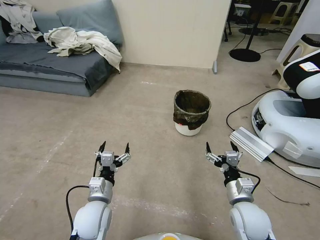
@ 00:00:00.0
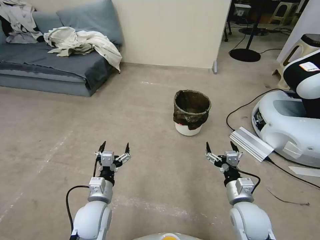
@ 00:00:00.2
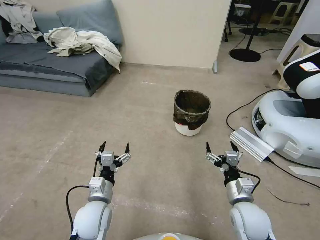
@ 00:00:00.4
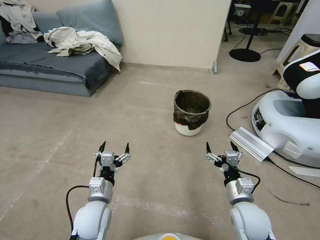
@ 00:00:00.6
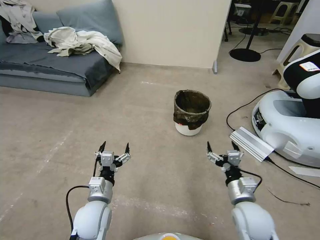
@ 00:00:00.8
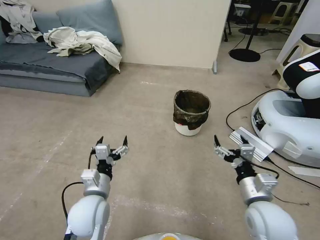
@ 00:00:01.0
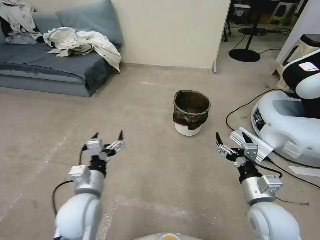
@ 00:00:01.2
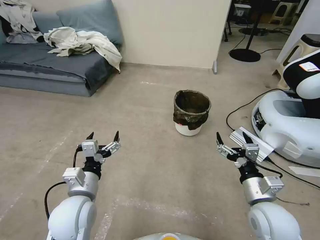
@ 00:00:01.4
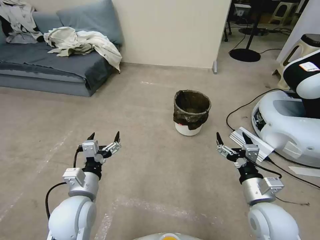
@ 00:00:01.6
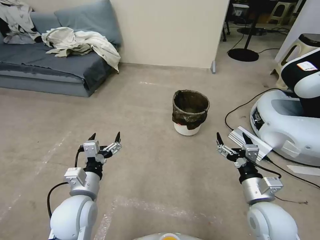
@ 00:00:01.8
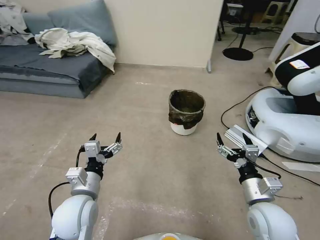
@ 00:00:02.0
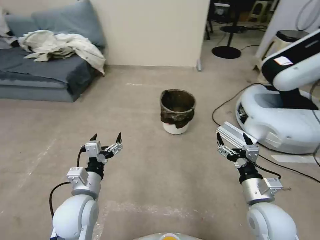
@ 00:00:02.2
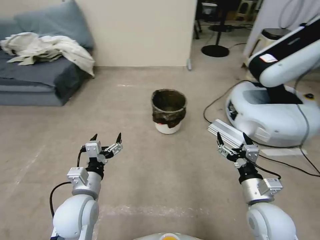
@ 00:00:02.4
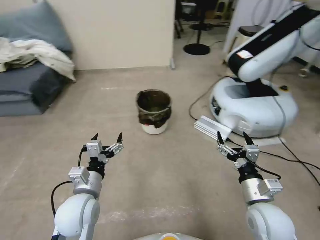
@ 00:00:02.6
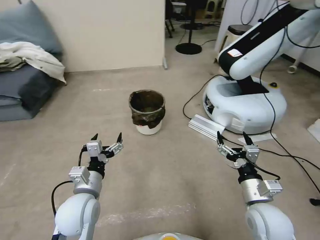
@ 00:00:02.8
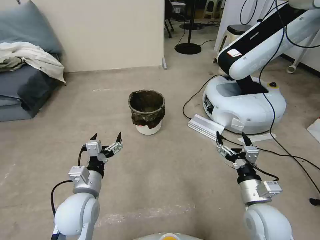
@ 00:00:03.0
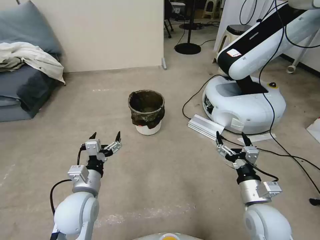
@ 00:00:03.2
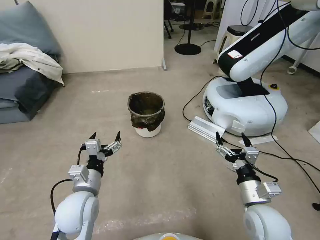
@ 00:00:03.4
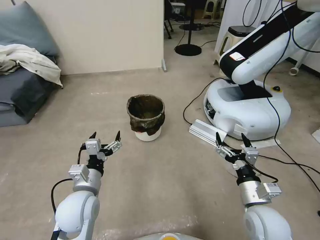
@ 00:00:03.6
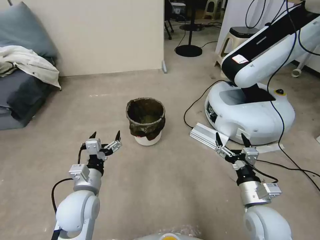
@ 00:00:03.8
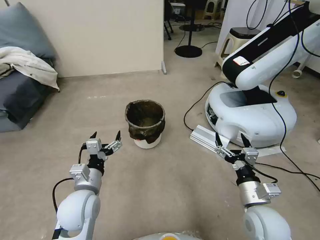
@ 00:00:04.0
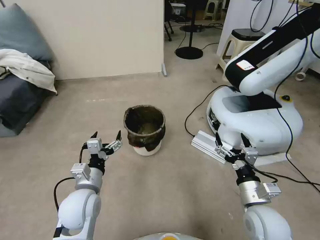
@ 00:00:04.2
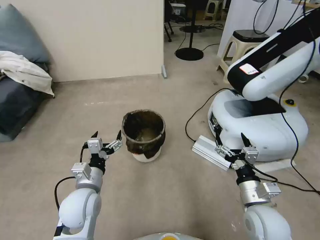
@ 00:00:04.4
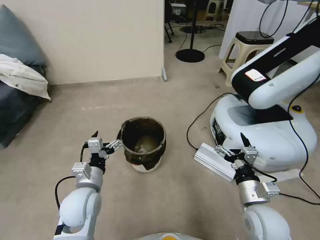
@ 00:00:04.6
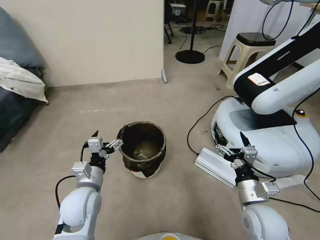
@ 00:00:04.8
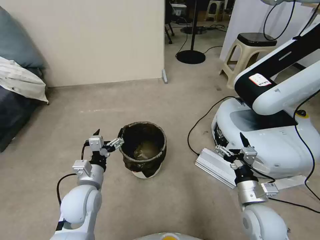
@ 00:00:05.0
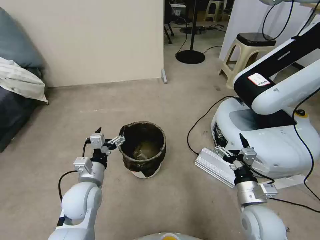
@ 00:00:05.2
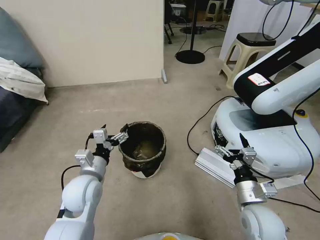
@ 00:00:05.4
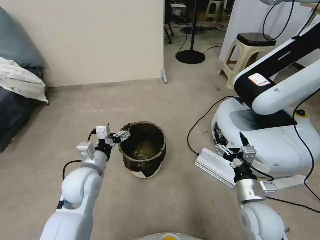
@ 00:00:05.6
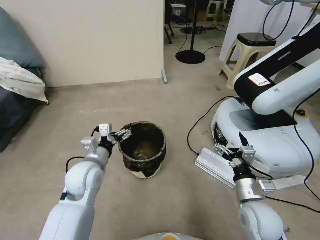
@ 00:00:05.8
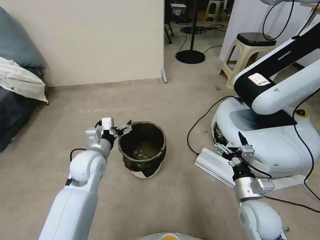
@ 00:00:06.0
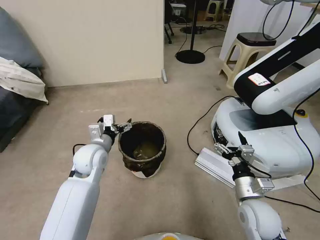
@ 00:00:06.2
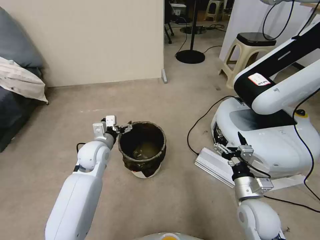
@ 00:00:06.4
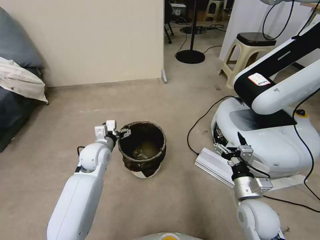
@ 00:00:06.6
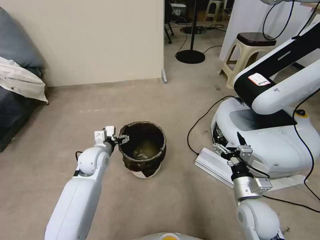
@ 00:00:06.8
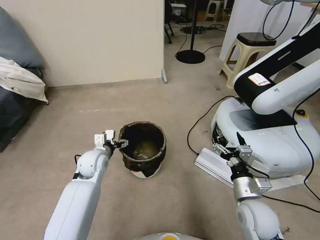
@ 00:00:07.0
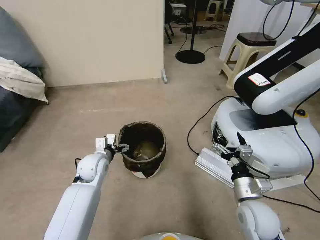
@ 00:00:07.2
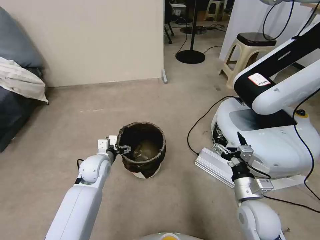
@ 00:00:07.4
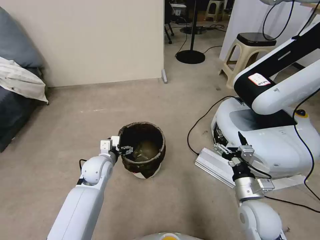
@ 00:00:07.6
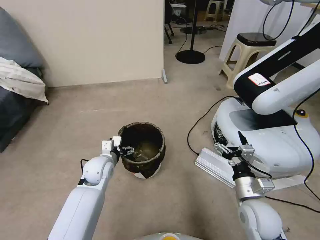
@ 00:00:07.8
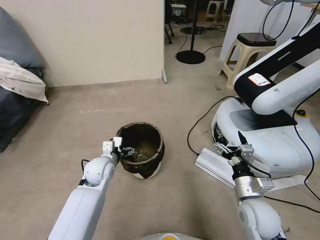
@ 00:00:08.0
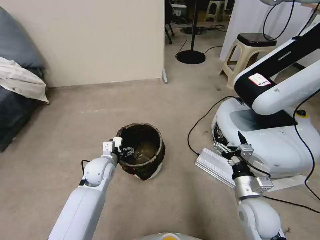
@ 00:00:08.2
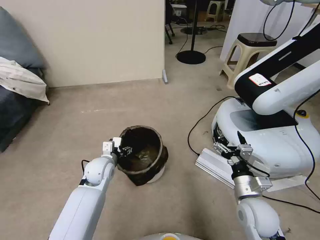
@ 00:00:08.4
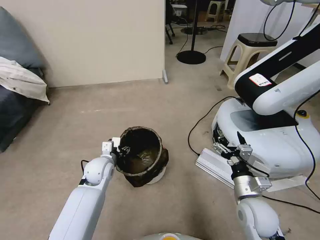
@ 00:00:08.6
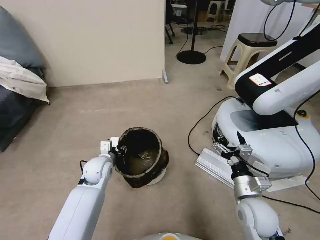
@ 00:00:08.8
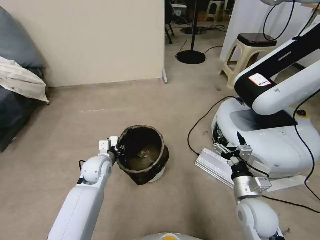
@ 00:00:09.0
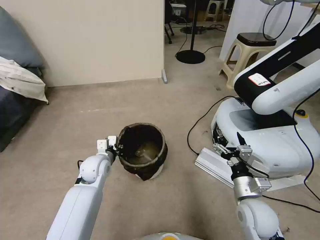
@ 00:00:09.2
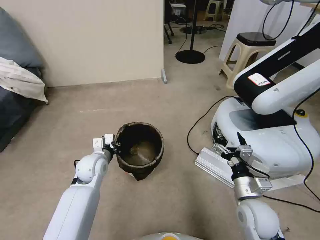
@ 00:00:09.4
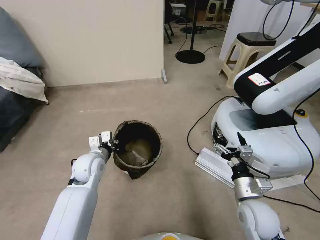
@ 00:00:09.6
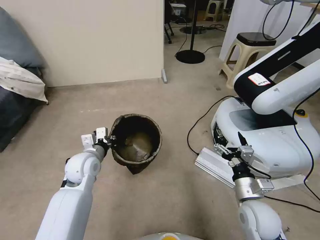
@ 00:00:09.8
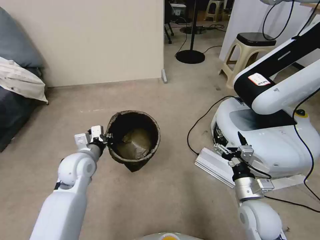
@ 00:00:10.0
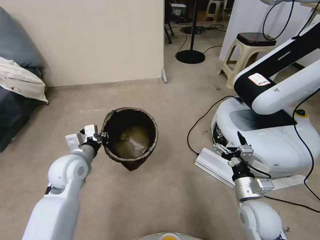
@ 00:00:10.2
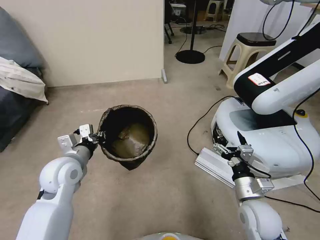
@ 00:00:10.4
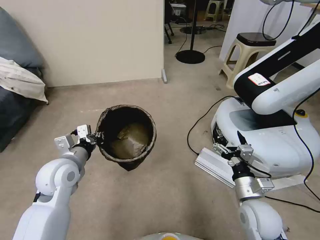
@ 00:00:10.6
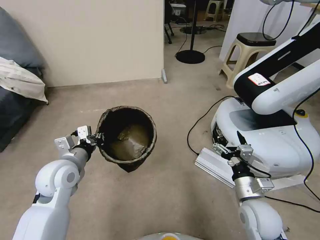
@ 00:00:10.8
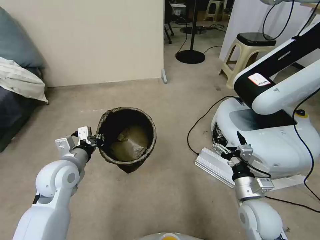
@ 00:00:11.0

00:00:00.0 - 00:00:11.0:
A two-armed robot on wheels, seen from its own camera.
Task of the whole recording: Pick up the trash can from the floor.
00:00:04.8 - 00:00:06.2: The left gripper heads forward, covering some 10 cm.
00:00:06.2 - 00:00:07.8: The left gripper goes roughly 10 cm downward.
00:00:07.8 - 00:00:09.4: The left gripper closes its fingers.
00:00:09.4 - 00:00:11.0: The left gripper is displaced upward and backward by approximately 10 cm.

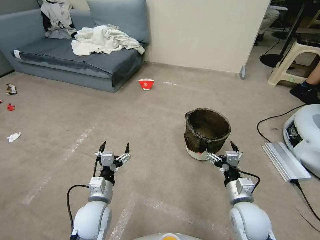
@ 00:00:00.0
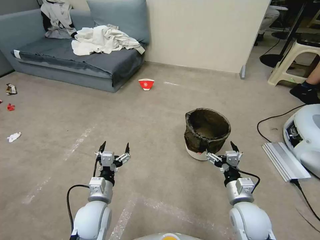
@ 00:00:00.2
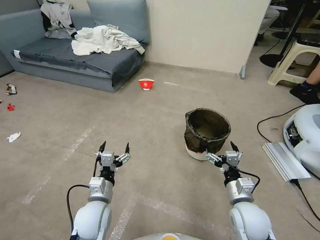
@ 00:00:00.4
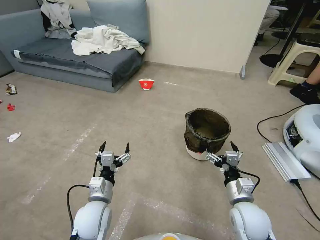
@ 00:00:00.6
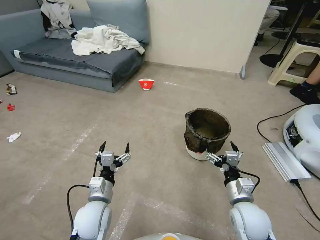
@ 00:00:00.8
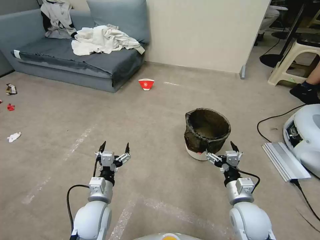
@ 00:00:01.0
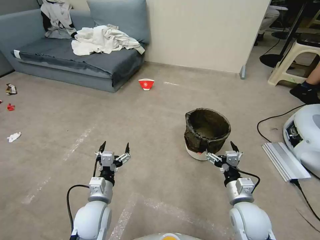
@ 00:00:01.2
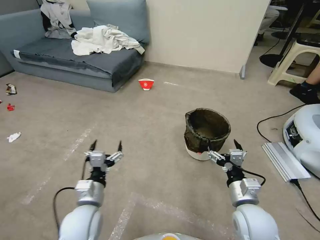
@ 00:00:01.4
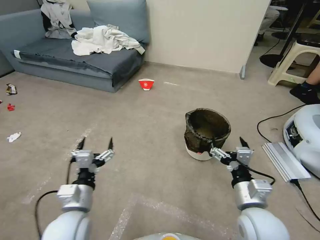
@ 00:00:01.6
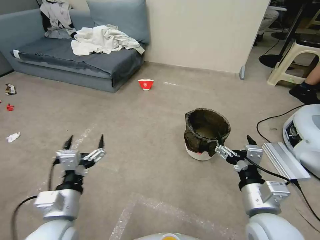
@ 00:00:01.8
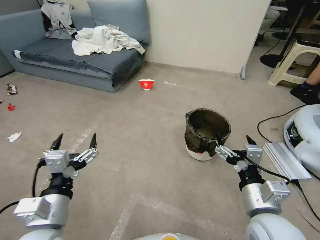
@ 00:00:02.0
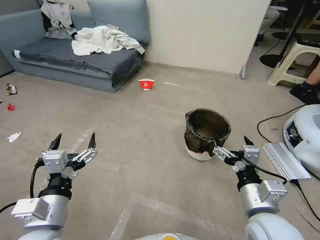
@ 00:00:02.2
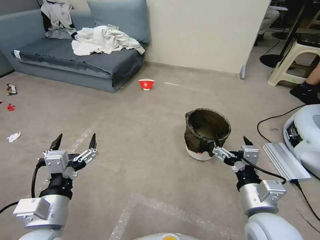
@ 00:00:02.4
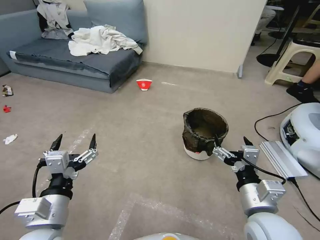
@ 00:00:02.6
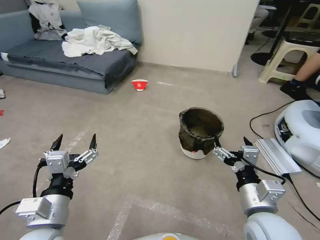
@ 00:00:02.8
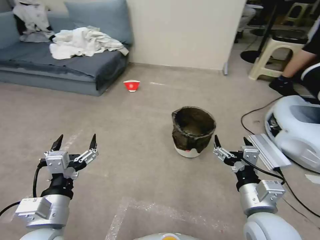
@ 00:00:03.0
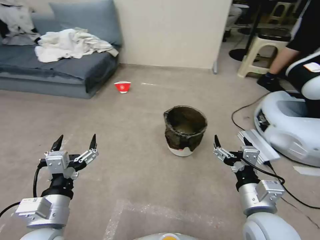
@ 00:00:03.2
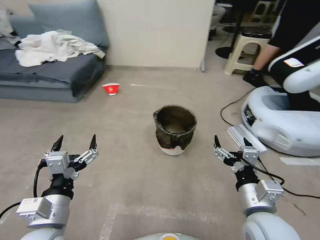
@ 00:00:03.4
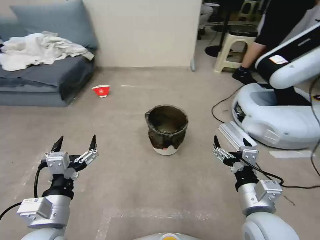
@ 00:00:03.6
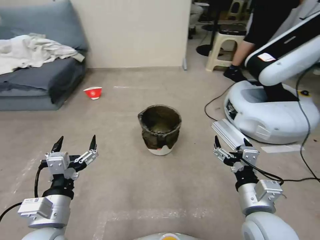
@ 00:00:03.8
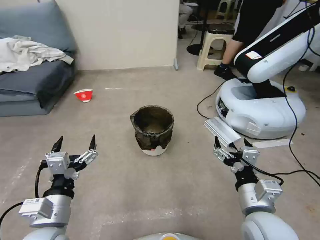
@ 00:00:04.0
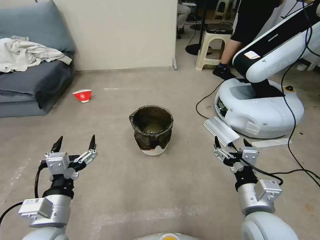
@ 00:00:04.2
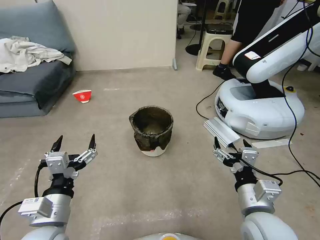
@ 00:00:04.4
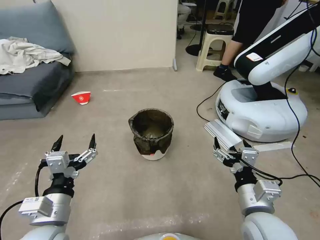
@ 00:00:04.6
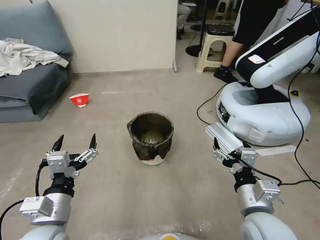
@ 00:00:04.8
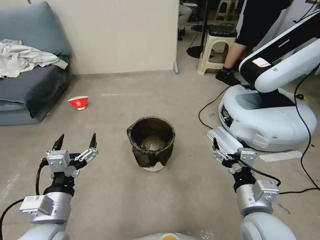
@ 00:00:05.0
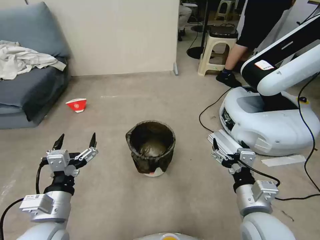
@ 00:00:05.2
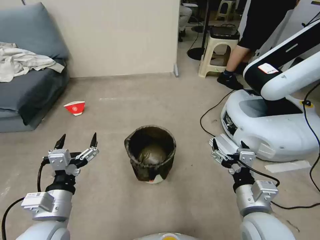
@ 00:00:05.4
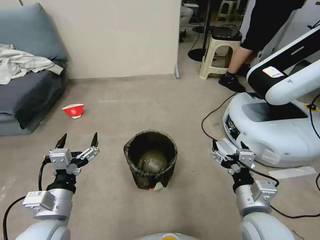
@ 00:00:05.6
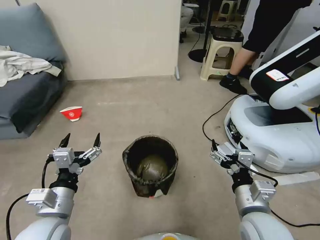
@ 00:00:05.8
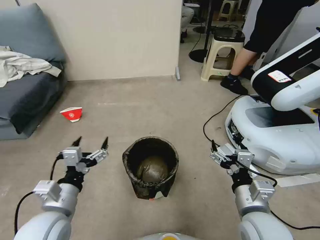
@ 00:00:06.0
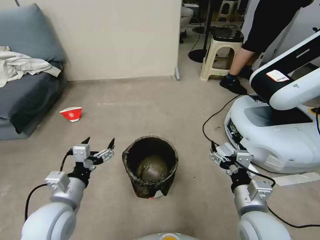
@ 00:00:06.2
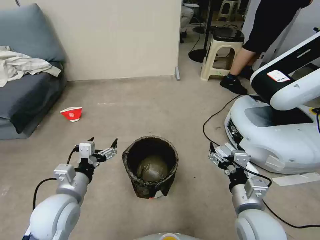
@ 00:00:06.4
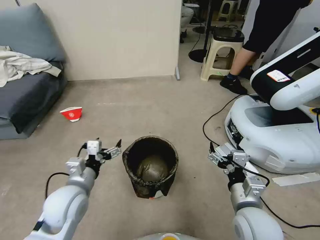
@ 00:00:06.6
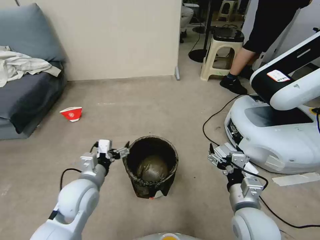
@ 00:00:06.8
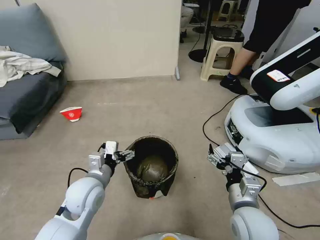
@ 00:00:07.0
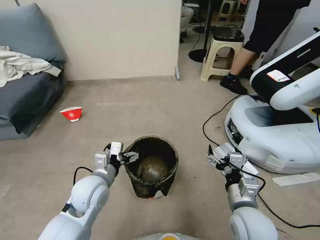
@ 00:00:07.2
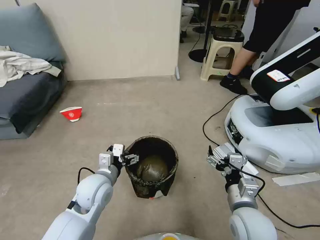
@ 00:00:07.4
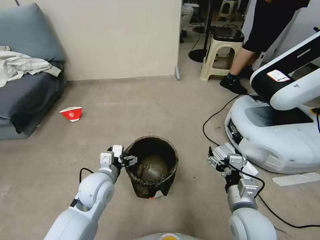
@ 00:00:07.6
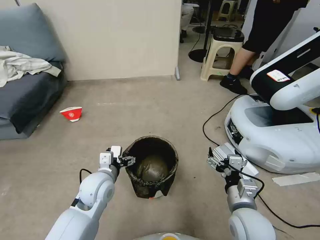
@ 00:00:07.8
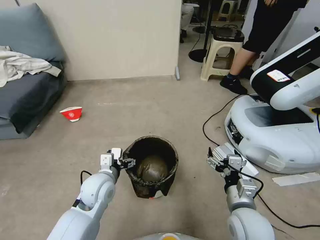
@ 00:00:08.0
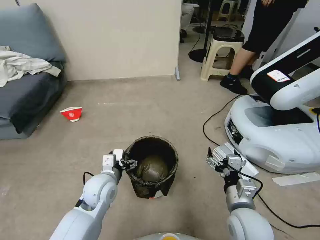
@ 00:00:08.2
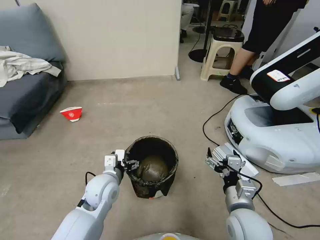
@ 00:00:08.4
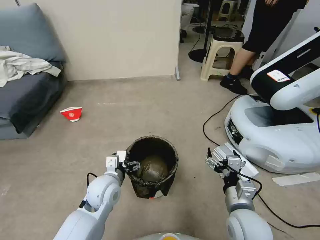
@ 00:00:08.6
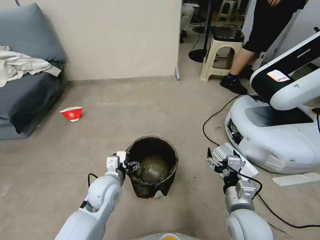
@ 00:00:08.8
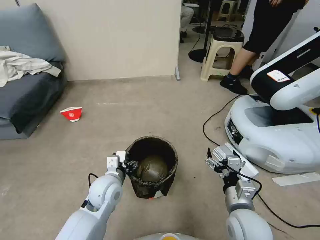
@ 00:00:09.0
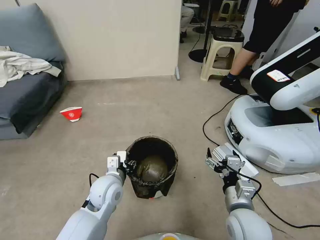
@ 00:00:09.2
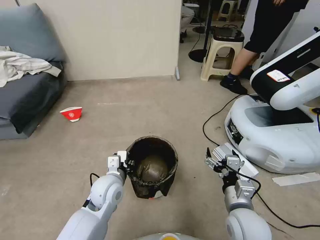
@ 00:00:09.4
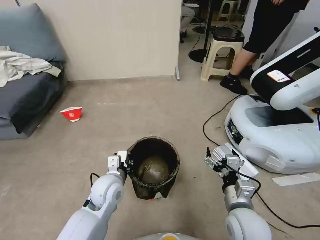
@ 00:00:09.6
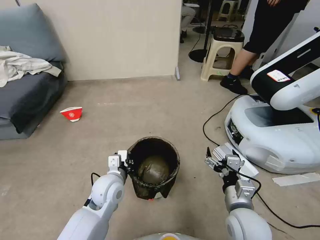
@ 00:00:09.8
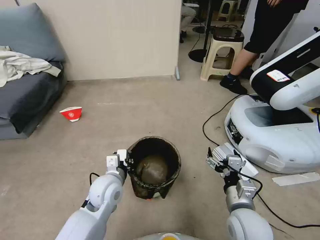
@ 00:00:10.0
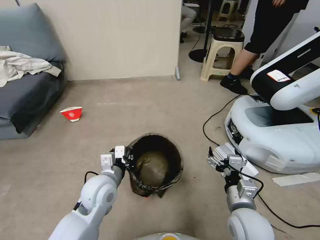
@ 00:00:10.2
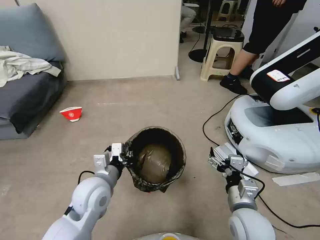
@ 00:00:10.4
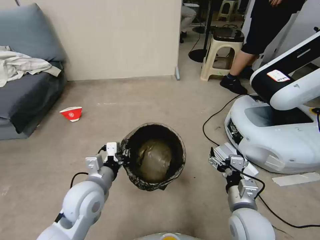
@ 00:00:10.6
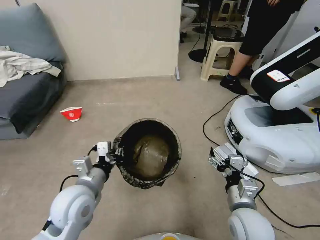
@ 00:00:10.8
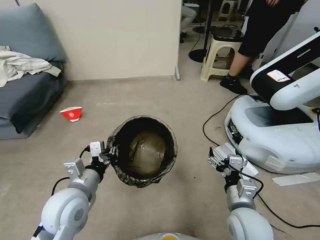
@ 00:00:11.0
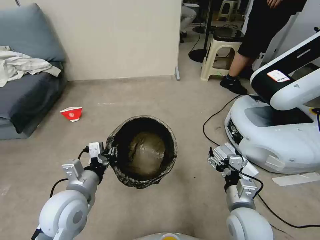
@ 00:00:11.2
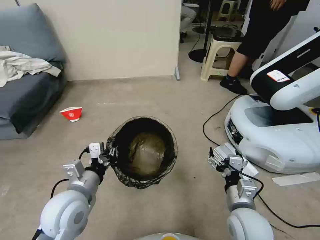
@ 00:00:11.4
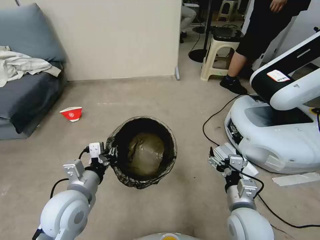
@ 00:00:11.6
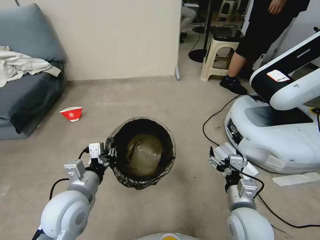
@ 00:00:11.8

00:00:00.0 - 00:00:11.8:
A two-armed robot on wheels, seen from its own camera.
Task of the whole recording: Pick up the trash can from the floor.
00:00:01.4 - 00:00:03.0: The left gripper shifts approximately 15 cm upward and backward; the right gripper shifts about 10 cm upward.
00:00:06.0 - 00:00:07.4: The left gripper moves forward, to the right and downward, roughly 15 cm.
00:00:07.4 - 00:00:08.8: There are only small adjustments of the grippers.
00:00:08.8 - 00:00:10.4: The left gripper shifts roughly 5 cm upward, and closes up.
00:00:10.4 - 00:00:11.8: The left gripper moves approximately 5 cm.
